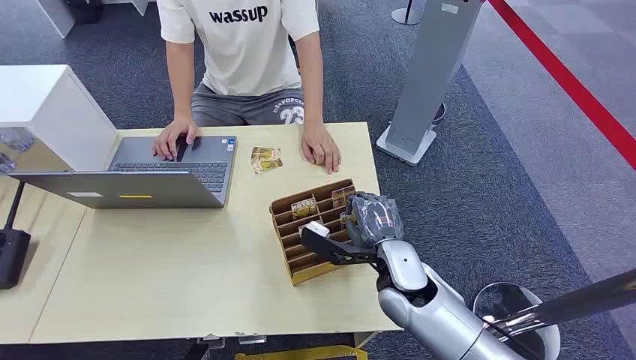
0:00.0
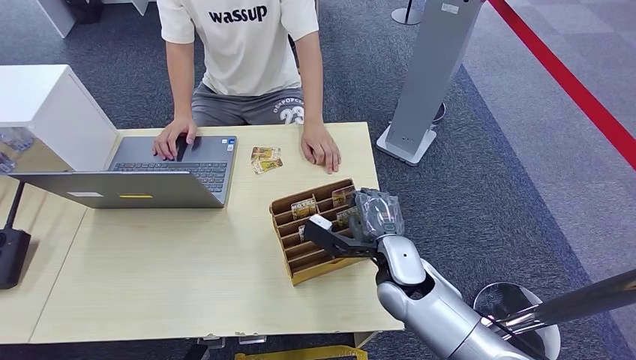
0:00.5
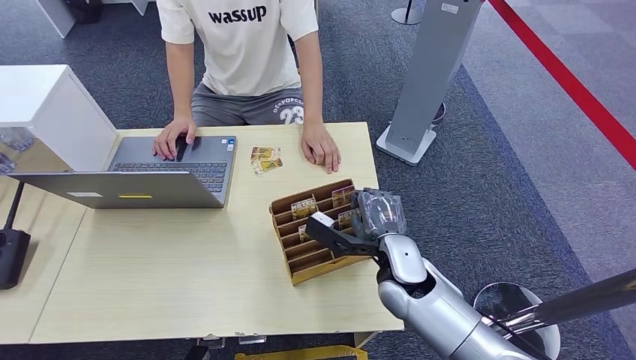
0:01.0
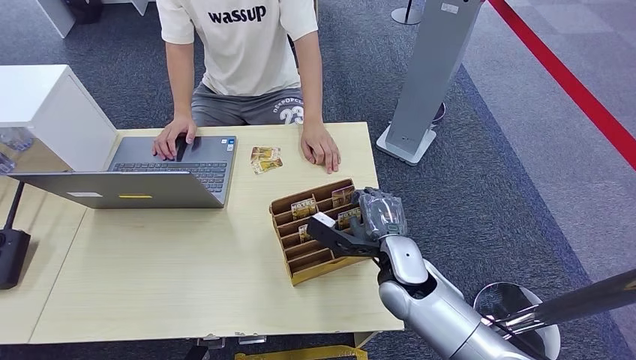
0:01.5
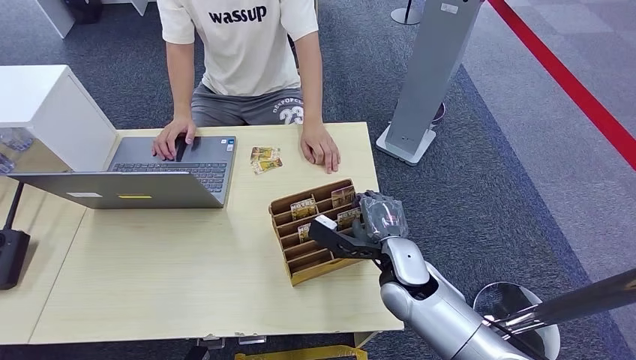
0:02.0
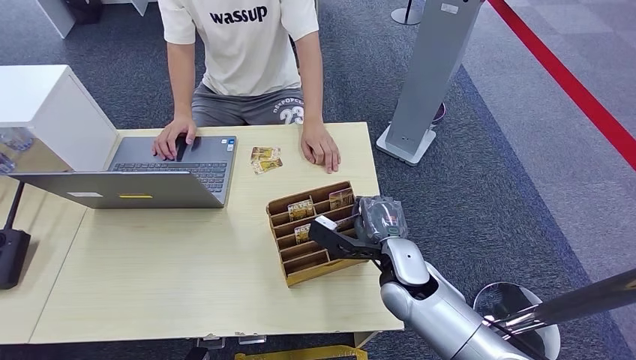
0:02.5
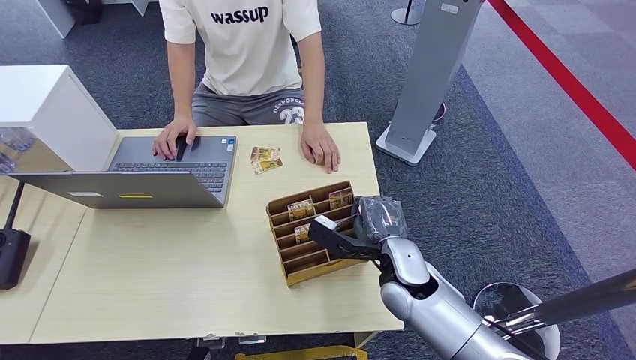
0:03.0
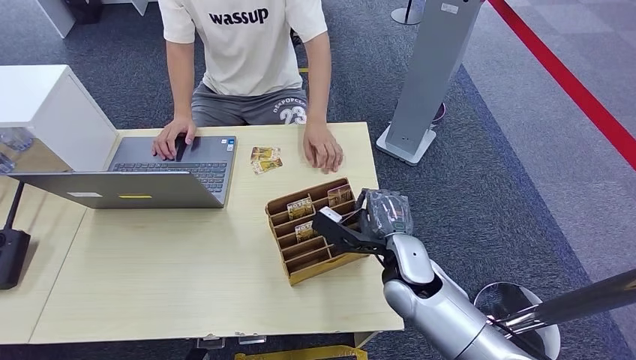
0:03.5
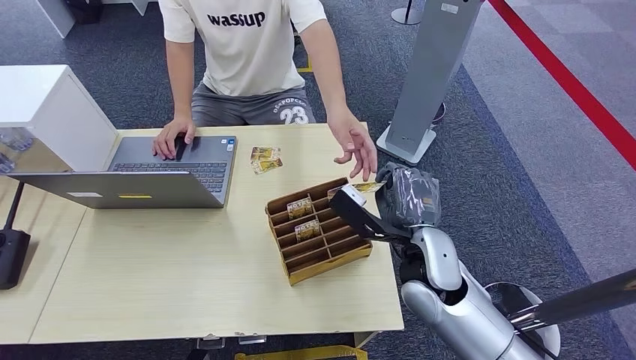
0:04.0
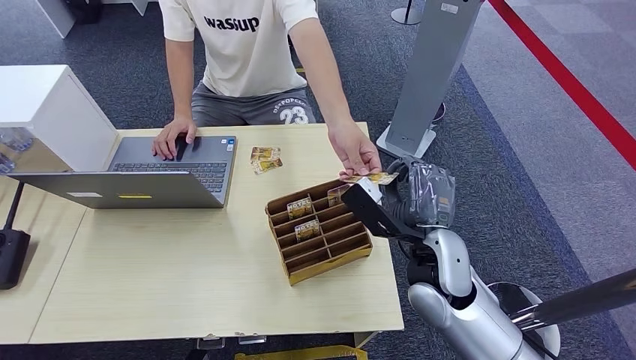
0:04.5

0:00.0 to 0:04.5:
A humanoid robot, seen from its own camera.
Step, 0:00.0 to 0:03.5: Pick up the key card from the card box.
0:02.0 to 0:04.5: The right hand shifts about 10 cm upward.
